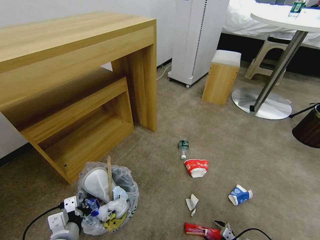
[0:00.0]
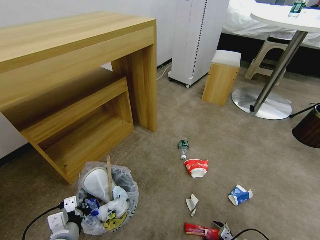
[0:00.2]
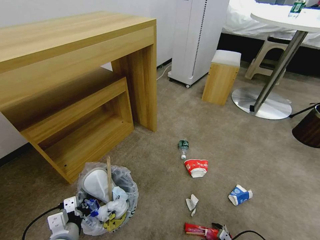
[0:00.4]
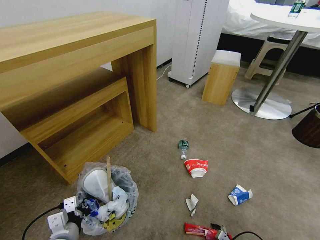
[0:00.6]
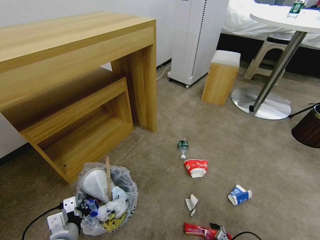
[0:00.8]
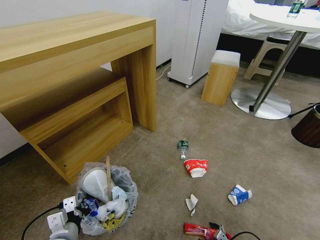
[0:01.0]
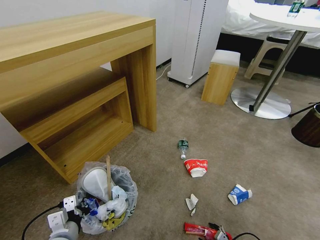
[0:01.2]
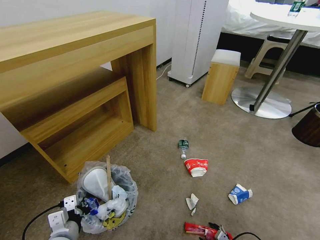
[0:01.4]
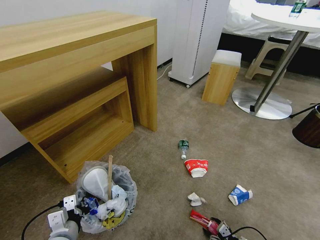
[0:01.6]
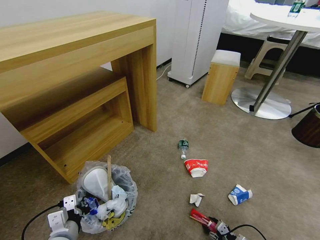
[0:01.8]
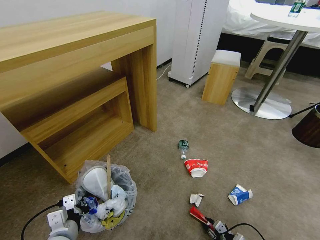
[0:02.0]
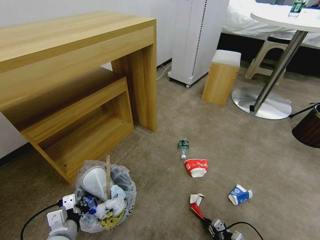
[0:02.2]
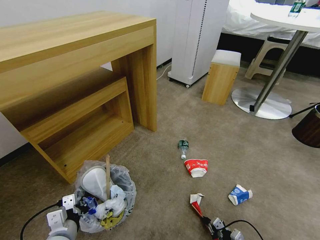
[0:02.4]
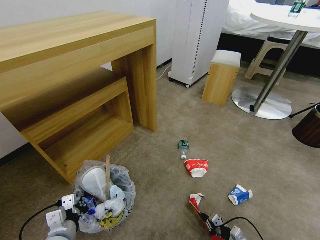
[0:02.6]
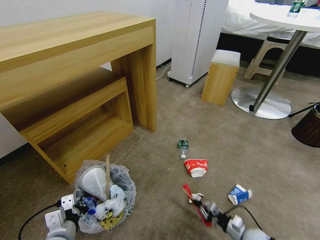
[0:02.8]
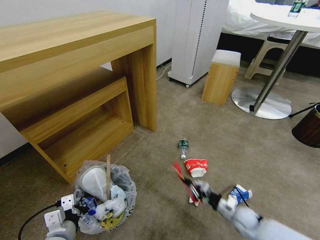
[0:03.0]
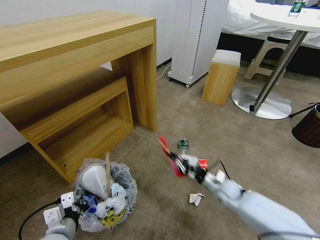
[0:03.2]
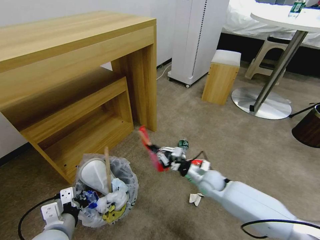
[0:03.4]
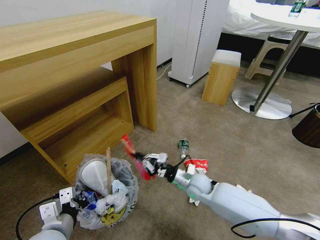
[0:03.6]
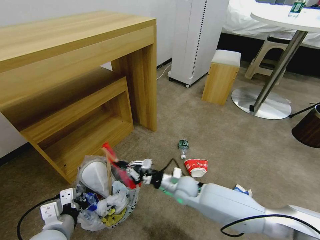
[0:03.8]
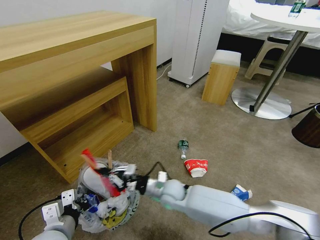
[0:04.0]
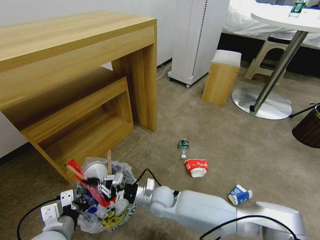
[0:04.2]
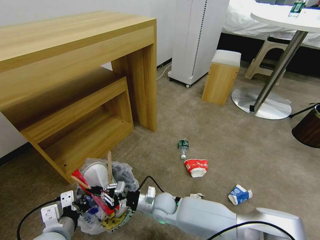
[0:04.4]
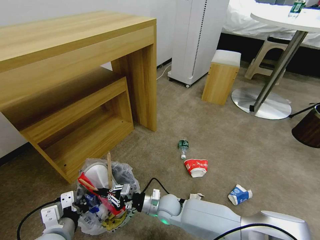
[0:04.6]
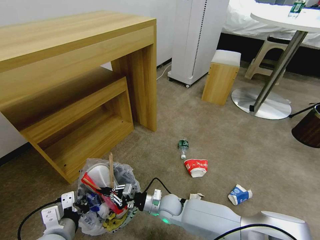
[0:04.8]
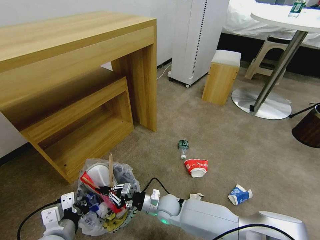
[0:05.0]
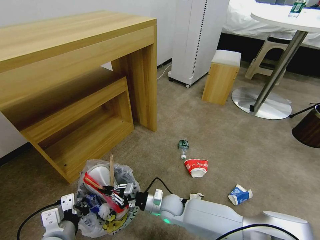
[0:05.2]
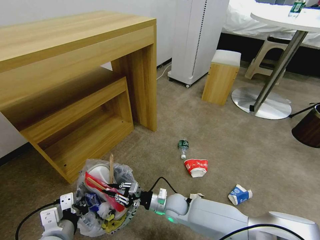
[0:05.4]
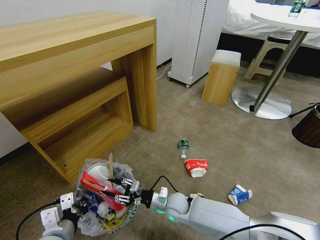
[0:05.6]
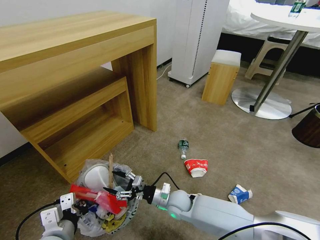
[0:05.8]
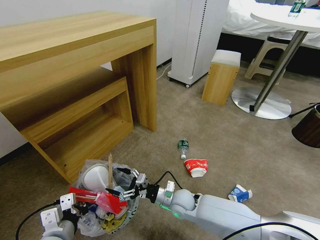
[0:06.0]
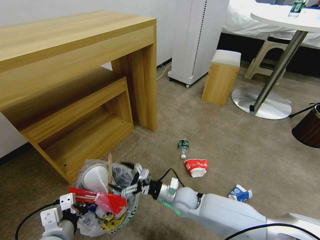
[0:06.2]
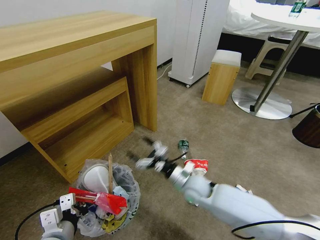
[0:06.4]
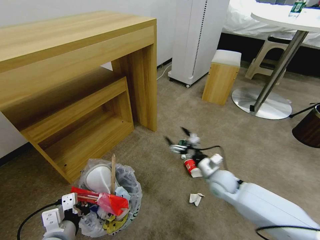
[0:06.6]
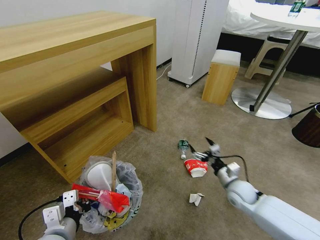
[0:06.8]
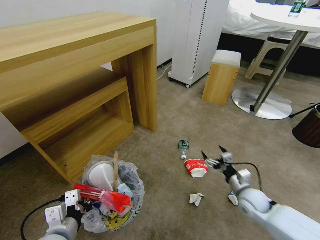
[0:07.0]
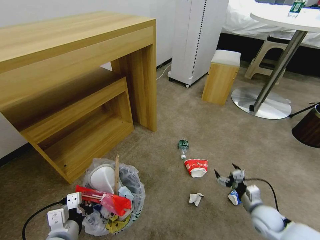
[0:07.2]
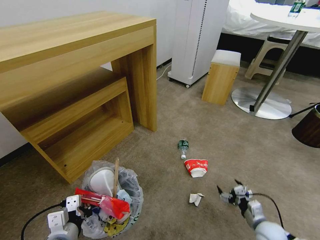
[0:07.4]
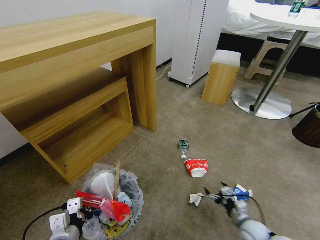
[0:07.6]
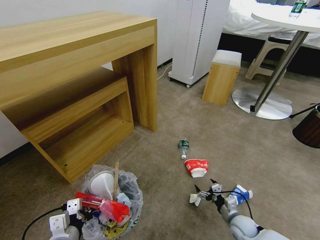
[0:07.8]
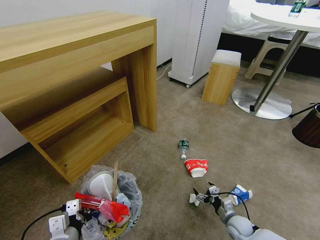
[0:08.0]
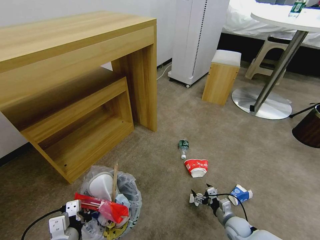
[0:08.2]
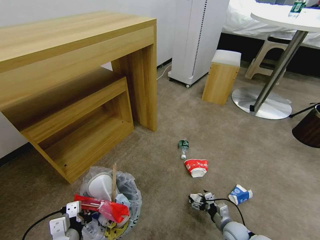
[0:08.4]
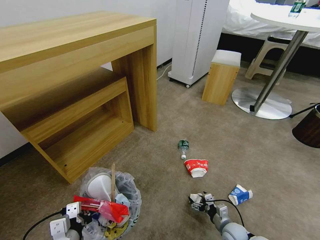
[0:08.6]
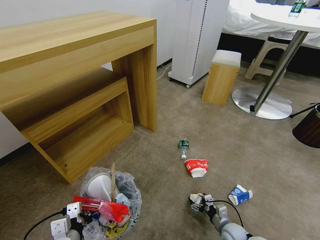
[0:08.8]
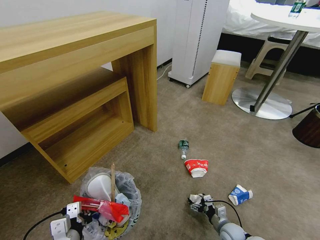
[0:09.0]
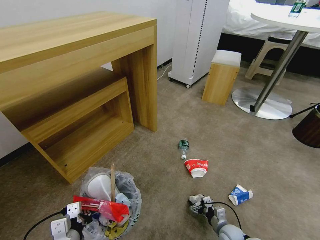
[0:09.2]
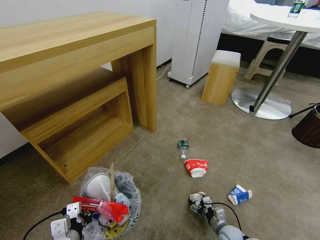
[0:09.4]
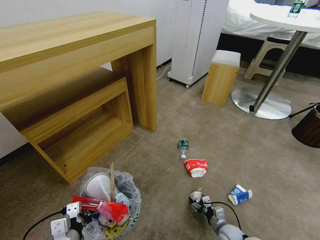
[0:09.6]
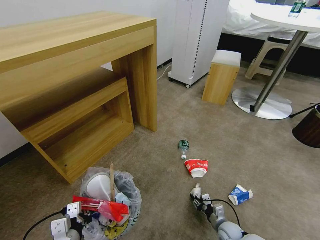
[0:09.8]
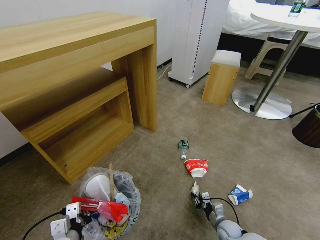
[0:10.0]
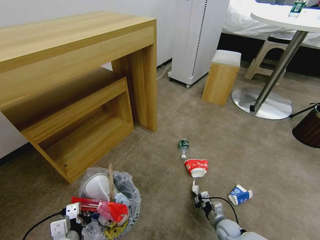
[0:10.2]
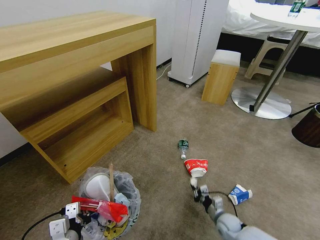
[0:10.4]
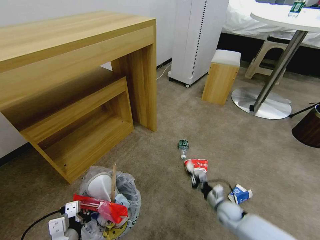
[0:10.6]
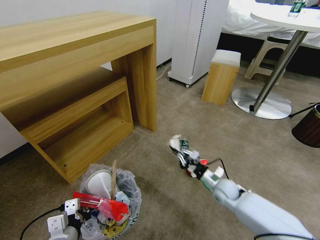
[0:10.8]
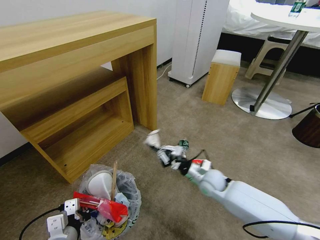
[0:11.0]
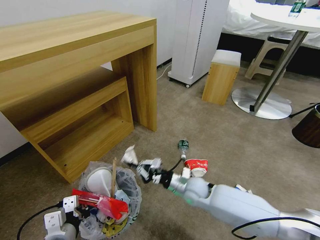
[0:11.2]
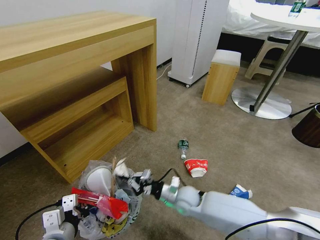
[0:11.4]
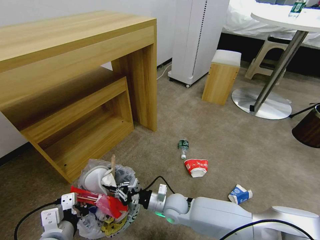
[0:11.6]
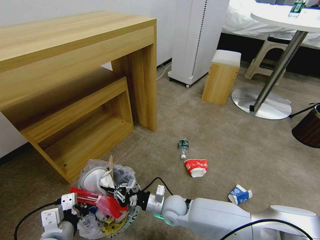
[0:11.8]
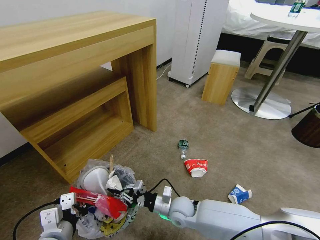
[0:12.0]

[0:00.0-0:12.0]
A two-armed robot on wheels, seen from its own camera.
Task of the whole recording: Pick up the trash bin and place the garbage on the floor into it.
0:00.0 to 0:01.6: The grippers make only small movements.
0:01.6 to 0:03.0: The right gripper travels forward, upward and to the left by some 20 cm, and closes its fingers.
0:03.0 to 0:04.4: The right gripper is displaced to the left by roughly 30 cm.
0:04.4 to 0:06.0: The right gripper shifts some 5 cm to the right, and opens.
0:06.0 to 0:07.6: The right gripper heads to the right, covering some 30 cm.
0:07.6 to 0:09.0: The right gripper shifts some 10 cm downward and to the left.
0:09.0 to 0:10.4: The right gripper closes.
0:10.4 to 0:12.0: The left gripper is displaced upward by approximately 5 cm. Meanwhile the right gripper moves to the left and upward, roughly 25 cm.

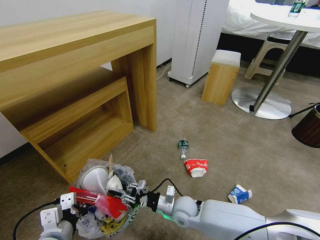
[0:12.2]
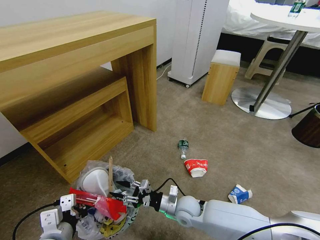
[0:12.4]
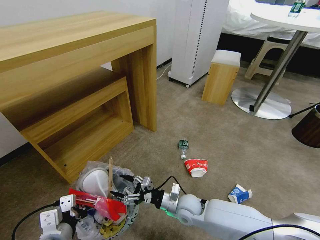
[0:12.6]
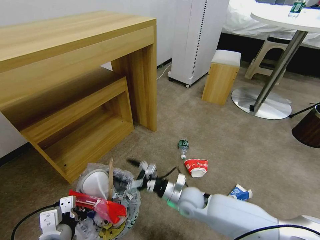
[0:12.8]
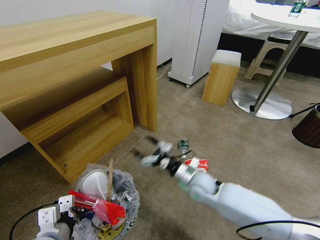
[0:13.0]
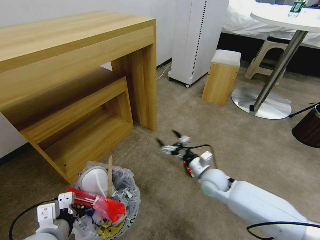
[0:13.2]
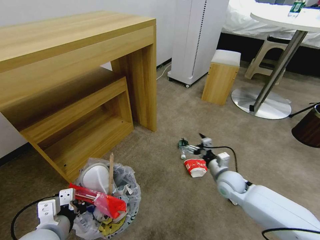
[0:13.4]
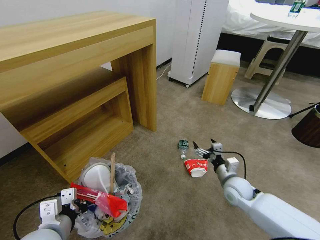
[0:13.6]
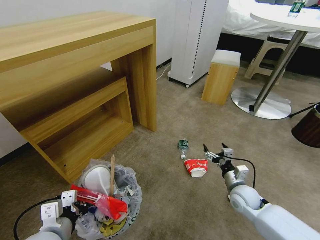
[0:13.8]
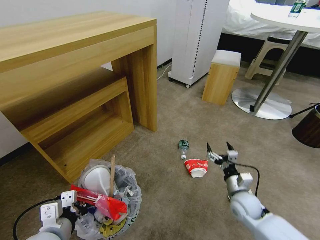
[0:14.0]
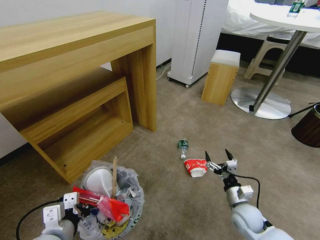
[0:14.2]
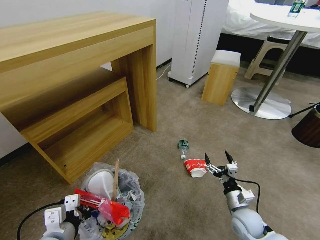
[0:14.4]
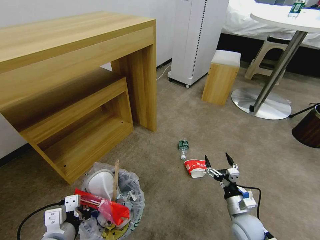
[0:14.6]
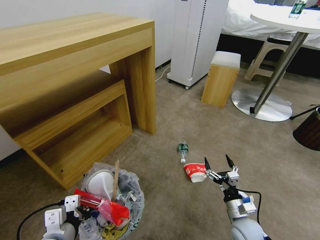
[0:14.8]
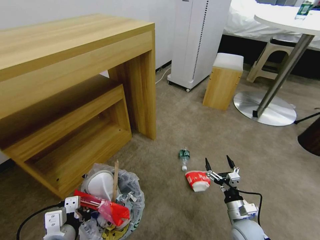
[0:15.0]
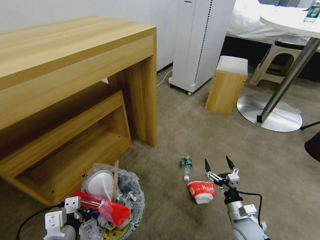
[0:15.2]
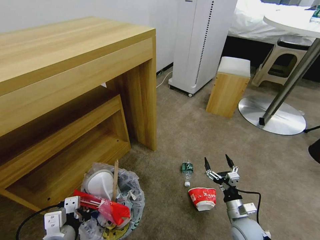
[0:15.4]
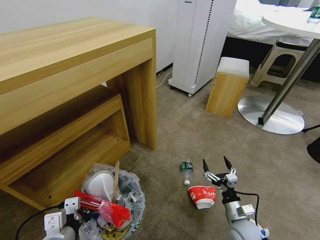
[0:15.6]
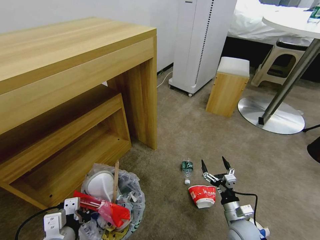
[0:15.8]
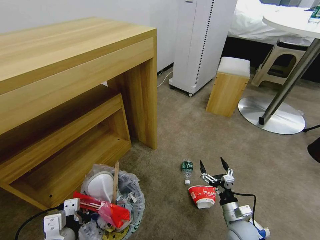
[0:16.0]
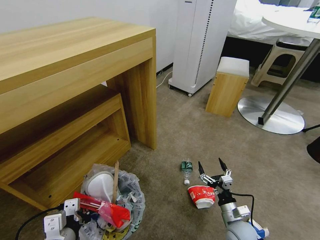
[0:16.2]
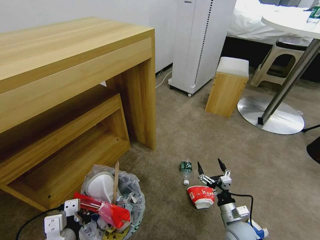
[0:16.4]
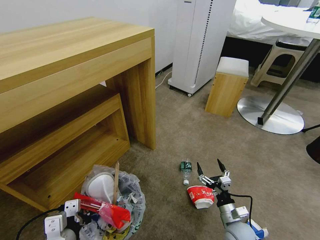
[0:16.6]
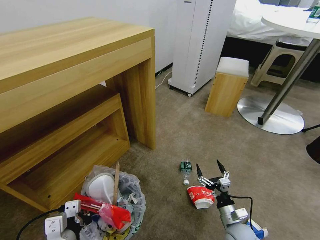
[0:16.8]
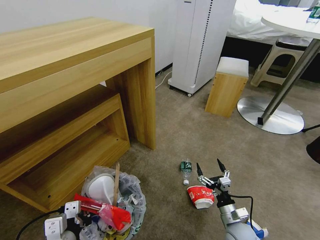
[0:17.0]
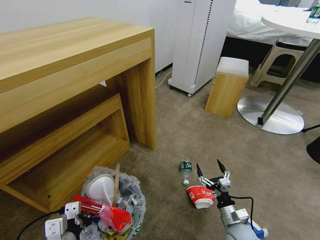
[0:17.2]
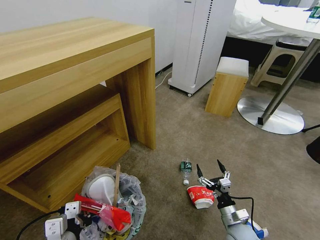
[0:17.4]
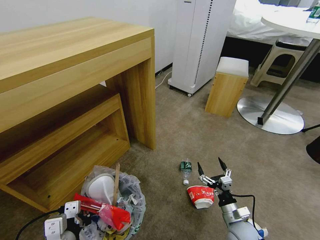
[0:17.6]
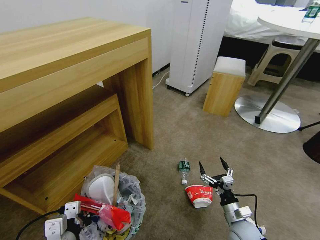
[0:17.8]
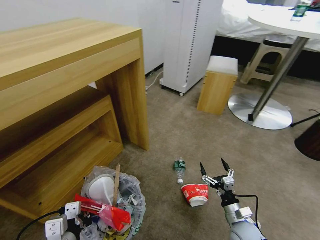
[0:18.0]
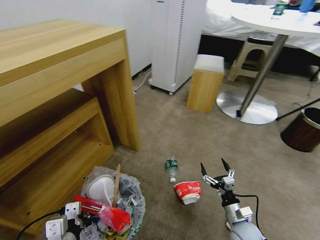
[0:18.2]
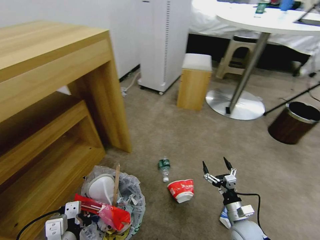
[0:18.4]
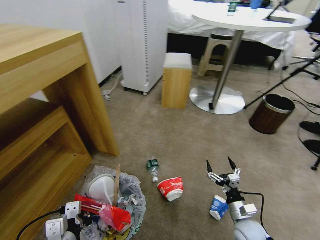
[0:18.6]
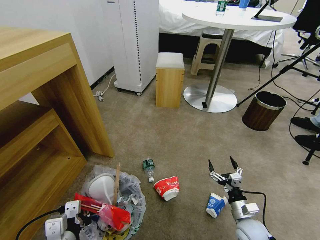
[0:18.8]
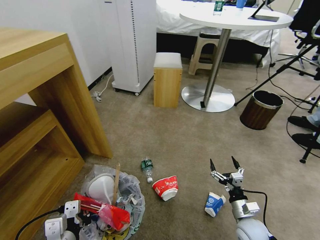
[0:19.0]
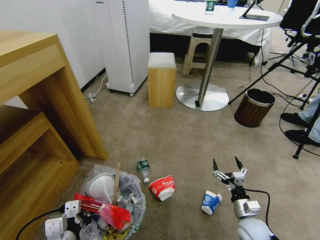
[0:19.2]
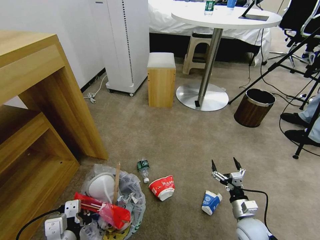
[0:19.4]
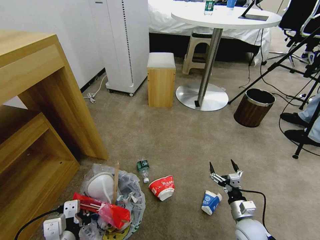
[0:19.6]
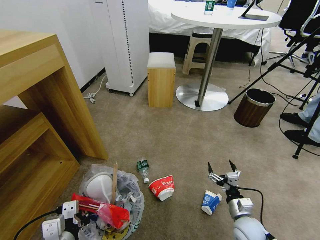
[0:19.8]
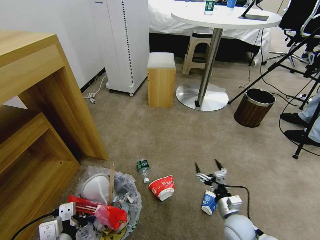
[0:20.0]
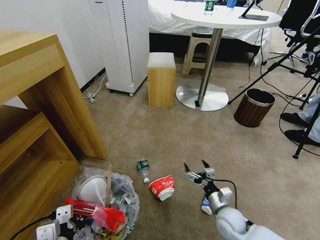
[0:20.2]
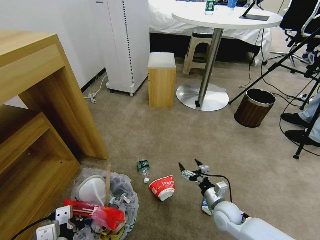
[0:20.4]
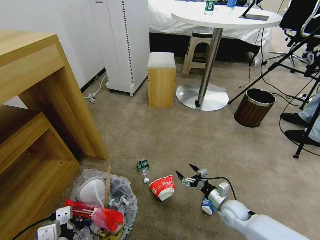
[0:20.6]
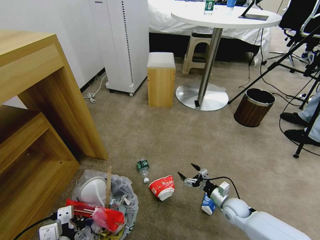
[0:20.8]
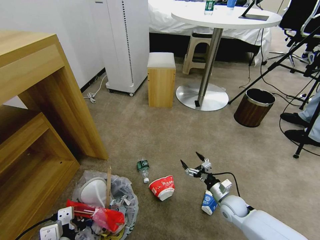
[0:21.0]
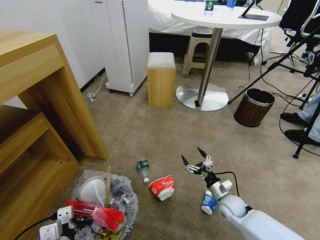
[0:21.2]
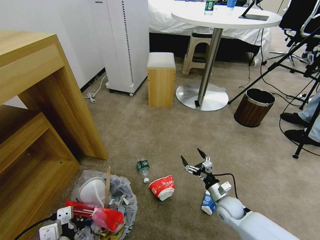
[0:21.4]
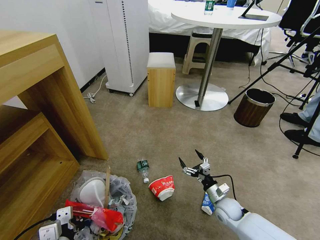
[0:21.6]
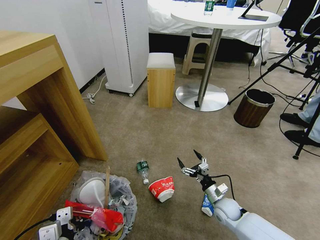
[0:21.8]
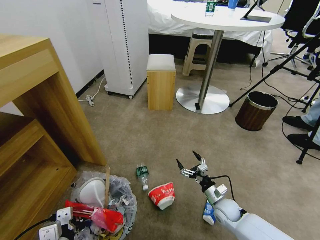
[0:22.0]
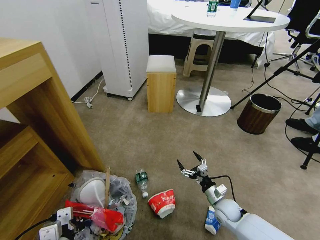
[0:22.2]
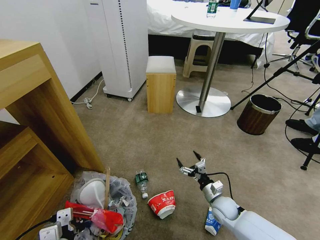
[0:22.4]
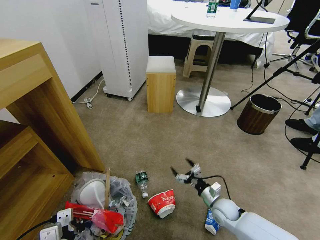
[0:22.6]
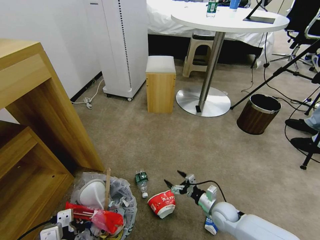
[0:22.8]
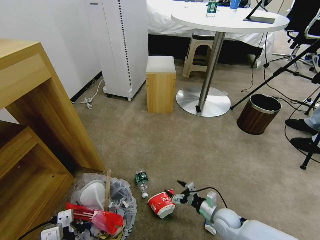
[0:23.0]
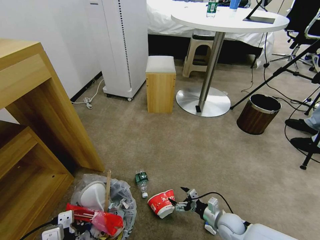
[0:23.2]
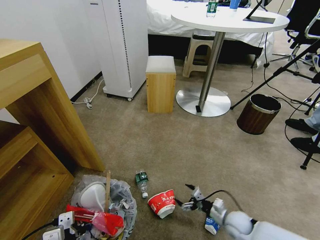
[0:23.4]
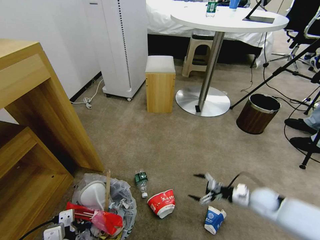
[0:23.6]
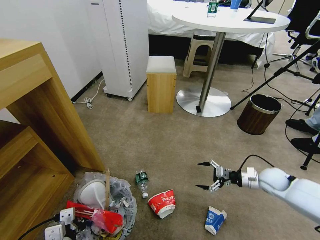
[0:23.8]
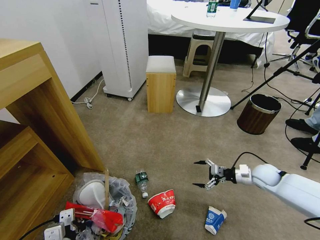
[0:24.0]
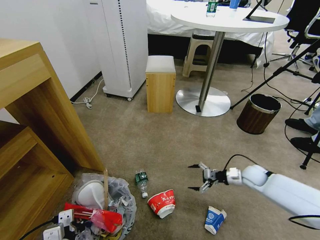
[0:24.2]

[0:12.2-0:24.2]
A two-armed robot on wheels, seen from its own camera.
Task of the whole recording: Pick up the trash bin and place the garbage on the floor into it.
0:12.2 to 0:13.8: The right gripper is displaced to the right by some 20 cm, and opens its fingers.
0:13.8 to 0:15.2: The right gripper heads backward, covering roughly 10 cm.
0:15.2 to 0:16.6: The grippers stay close to where they were, moving slightly.
0:19.8 to 0:21.2: The right gripper is displaced forward by approximately 10 cm.
0:22.6 to 0:24.2: The right gripper is displaced to the right, forward and upward by some 20 cm.
